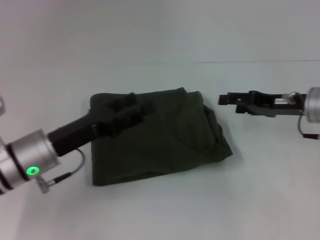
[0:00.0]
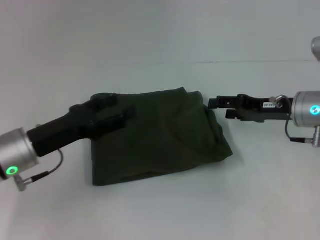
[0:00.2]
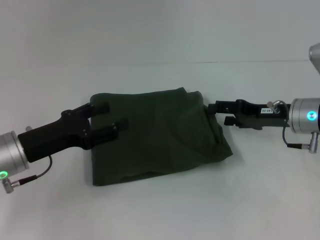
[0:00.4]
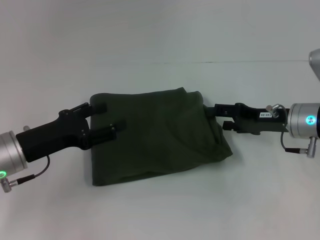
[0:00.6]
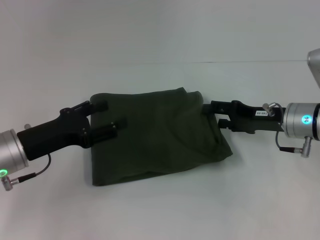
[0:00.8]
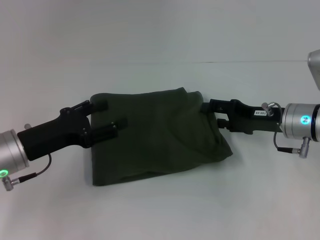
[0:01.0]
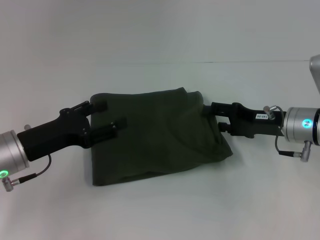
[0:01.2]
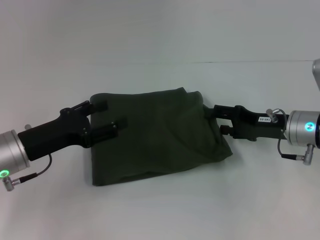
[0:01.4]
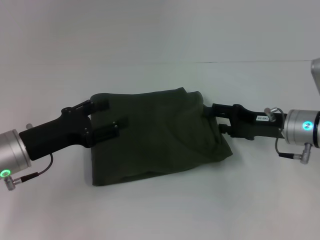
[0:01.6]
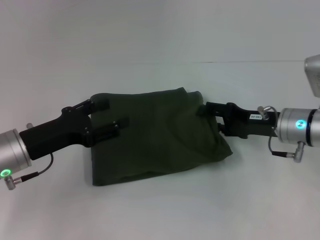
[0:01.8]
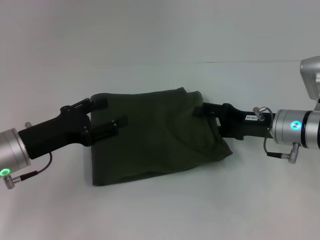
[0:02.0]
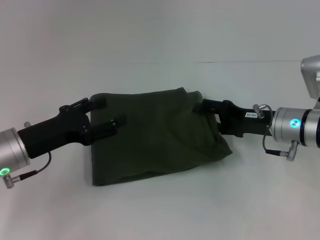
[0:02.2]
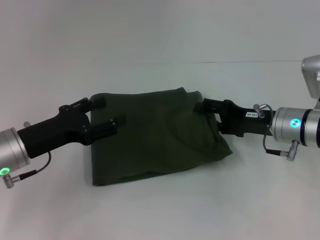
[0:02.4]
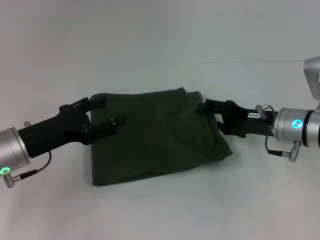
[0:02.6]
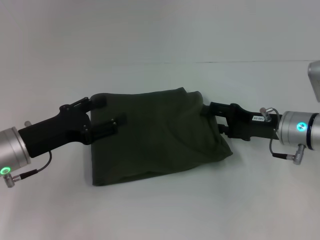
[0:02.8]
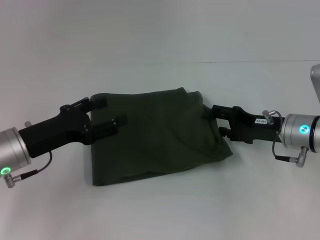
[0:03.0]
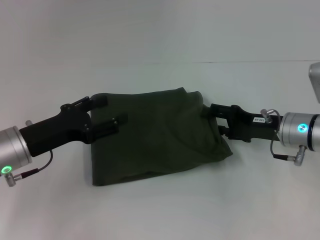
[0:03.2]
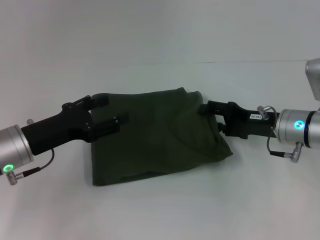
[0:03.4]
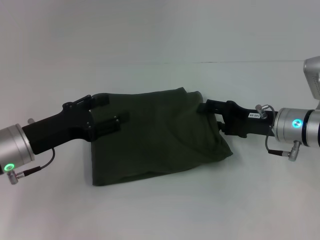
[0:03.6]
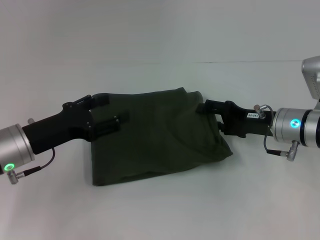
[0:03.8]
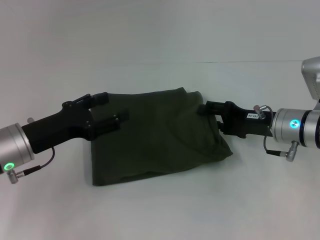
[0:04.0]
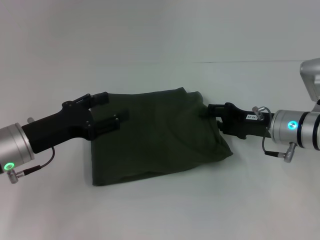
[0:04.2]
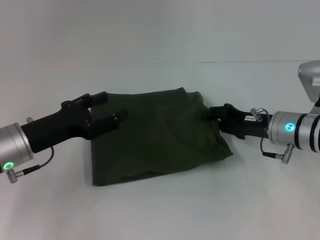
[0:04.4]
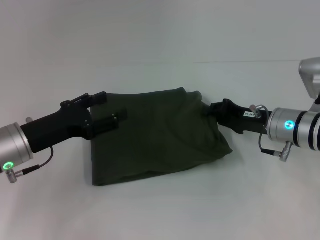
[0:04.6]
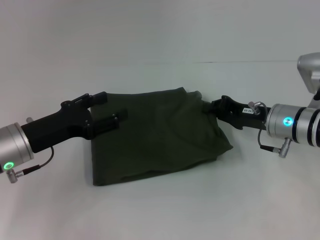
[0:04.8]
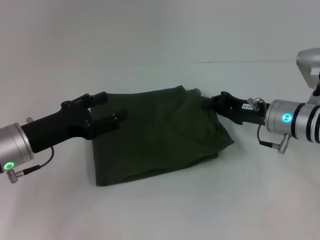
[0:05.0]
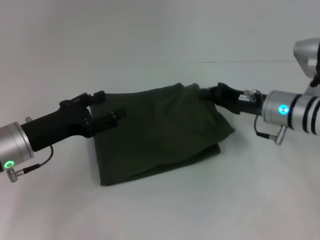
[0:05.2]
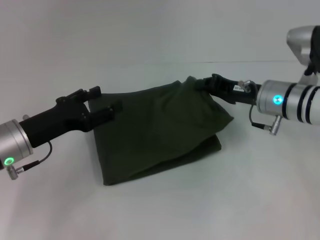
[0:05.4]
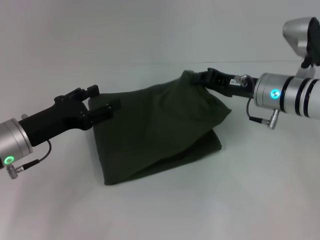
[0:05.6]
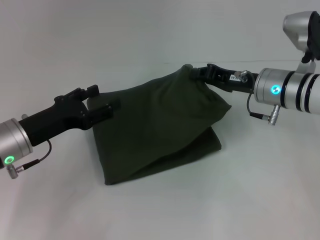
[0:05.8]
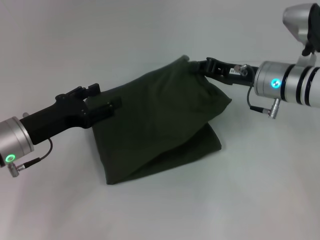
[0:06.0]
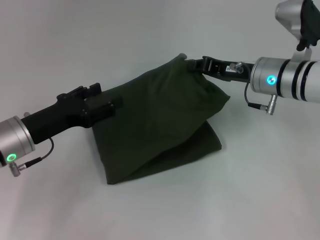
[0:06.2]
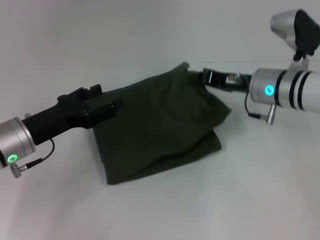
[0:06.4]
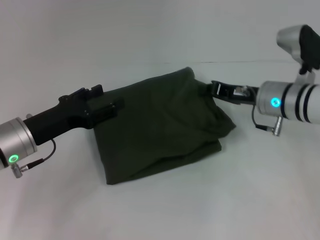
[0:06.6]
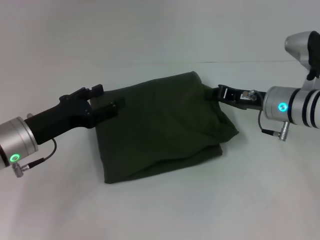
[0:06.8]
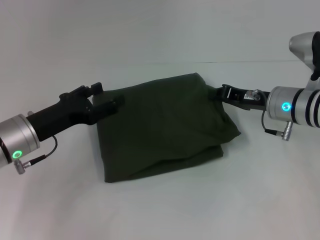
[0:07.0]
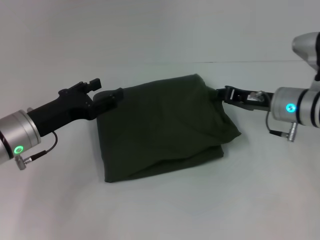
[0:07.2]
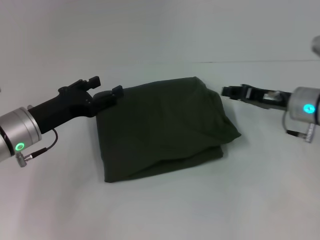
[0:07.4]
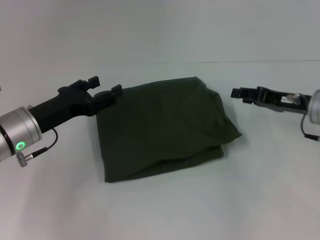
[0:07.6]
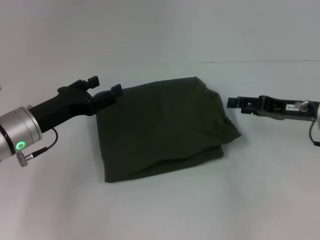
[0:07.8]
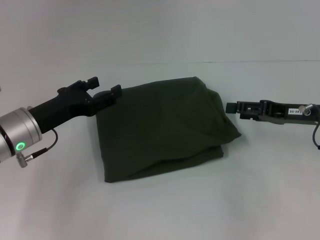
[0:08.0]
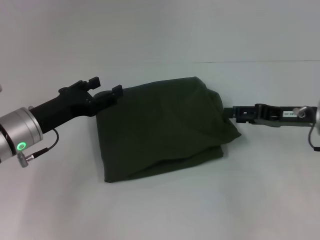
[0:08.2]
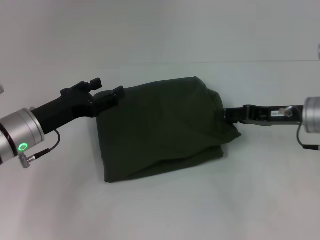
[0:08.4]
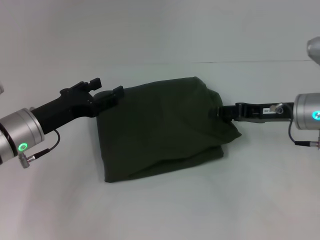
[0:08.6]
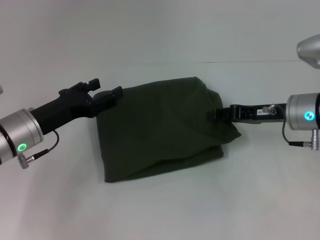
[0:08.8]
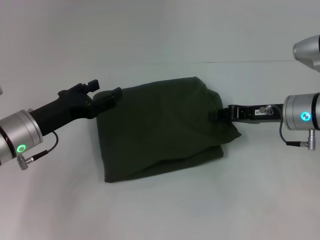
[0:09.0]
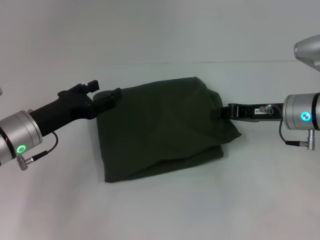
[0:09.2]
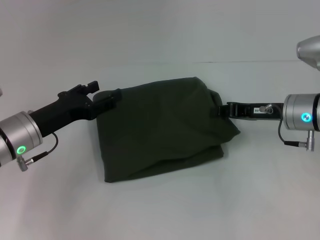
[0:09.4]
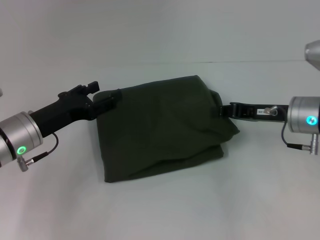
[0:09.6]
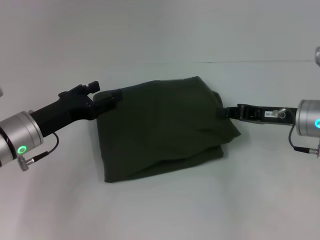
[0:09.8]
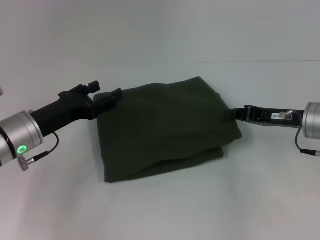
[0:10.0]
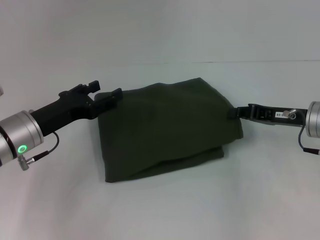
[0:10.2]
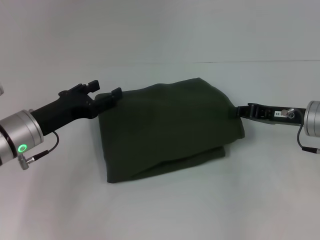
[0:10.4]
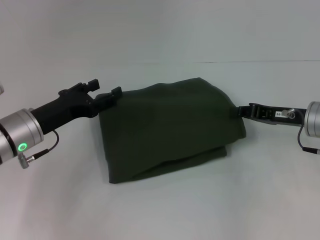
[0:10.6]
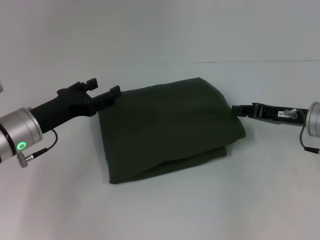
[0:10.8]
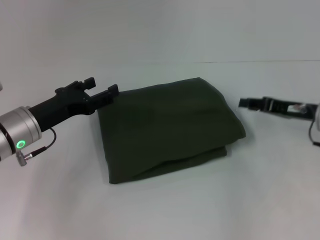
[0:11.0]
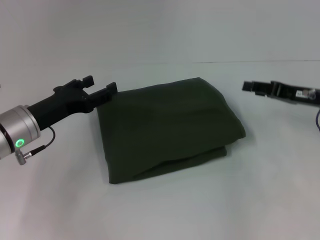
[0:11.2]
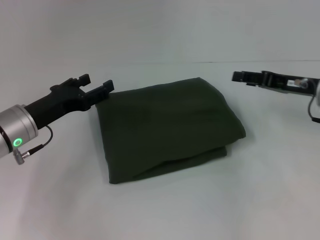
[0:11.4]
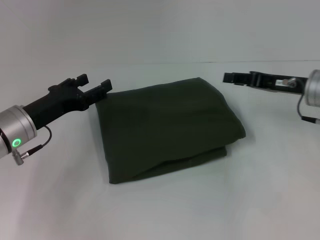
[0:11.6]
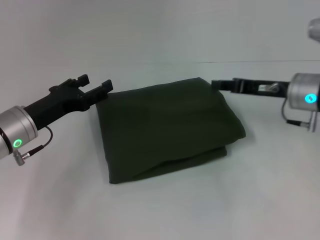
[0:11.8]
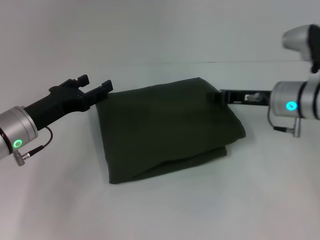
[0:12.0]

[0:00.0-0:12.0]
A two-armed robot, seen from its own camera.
0:00.0 to 0:01.6: The grippers make only small movements.
0:01.6 to 0:04.4: The grippers move only a little.
0:04.4 to 0:06.0: The right gripper goes some 5 cm upward, and closes up.
0:06.0 to 0:07.6: The right gripper travels to the right by about 10 cm.
0:07.6 to 0:09.0: The grippers stay close to where they were, moving slightly.
0:09.0 to 0:10.4: The right gripper closes up.
0:10.4 to 0:12.0: The right gripper shifts by roughly 5 cm.

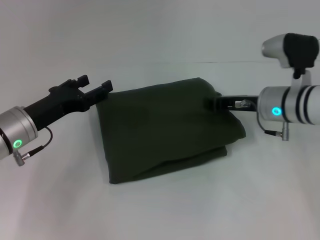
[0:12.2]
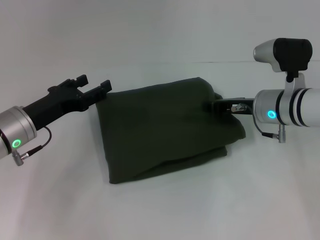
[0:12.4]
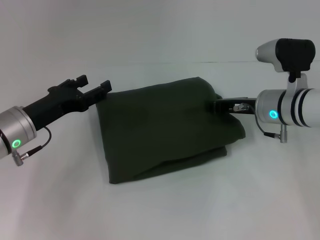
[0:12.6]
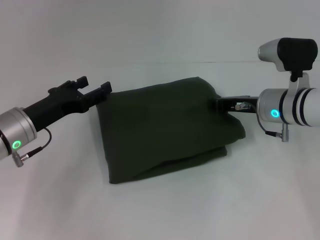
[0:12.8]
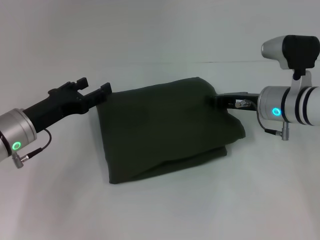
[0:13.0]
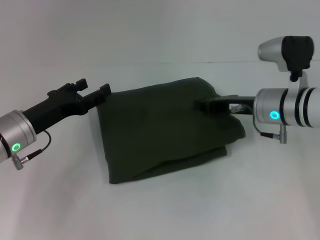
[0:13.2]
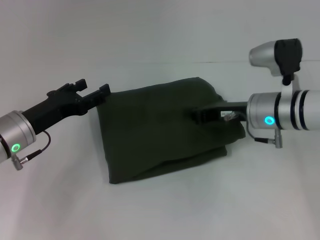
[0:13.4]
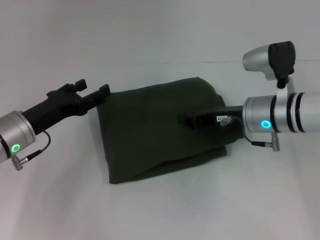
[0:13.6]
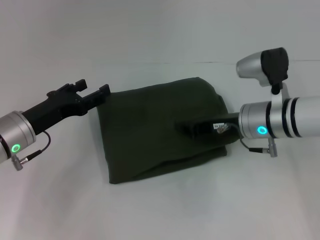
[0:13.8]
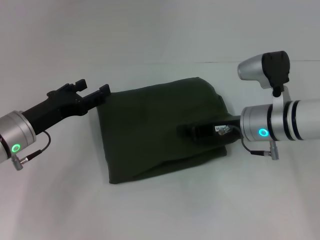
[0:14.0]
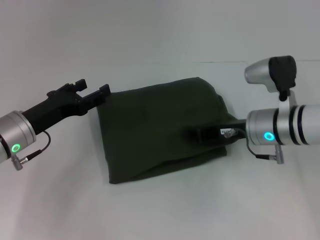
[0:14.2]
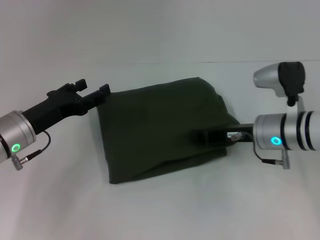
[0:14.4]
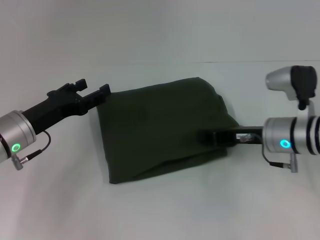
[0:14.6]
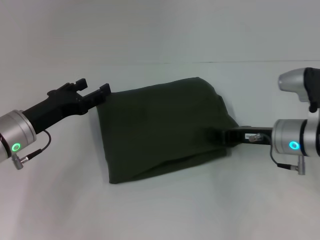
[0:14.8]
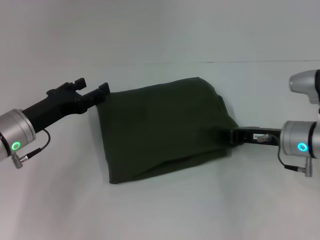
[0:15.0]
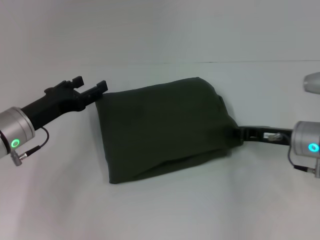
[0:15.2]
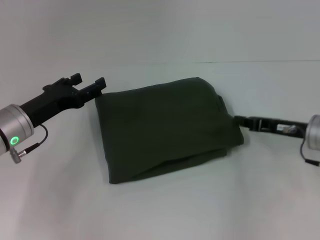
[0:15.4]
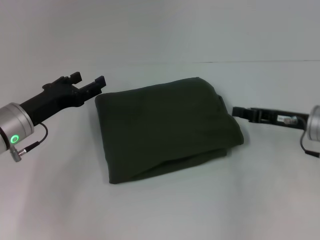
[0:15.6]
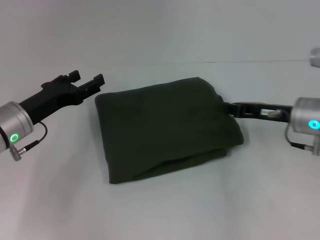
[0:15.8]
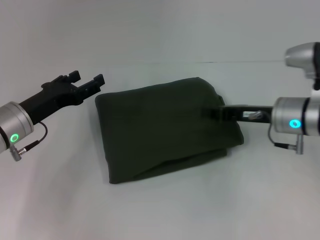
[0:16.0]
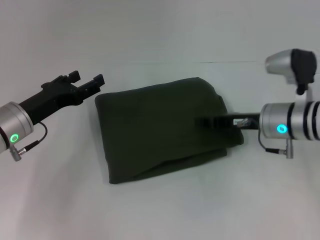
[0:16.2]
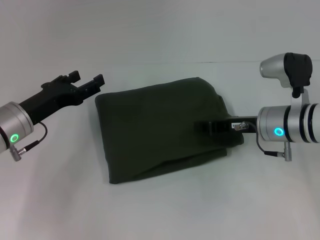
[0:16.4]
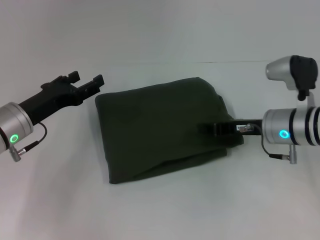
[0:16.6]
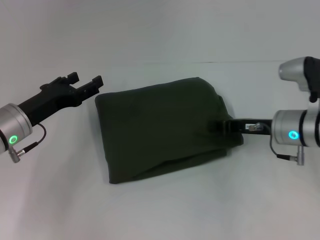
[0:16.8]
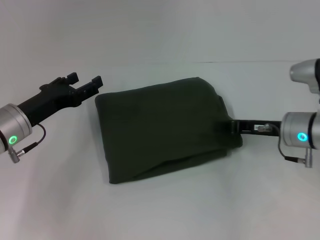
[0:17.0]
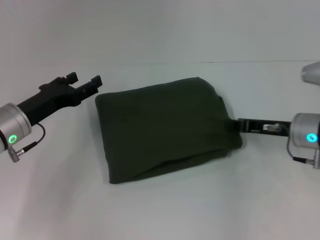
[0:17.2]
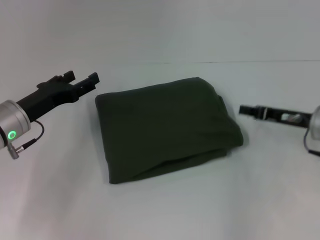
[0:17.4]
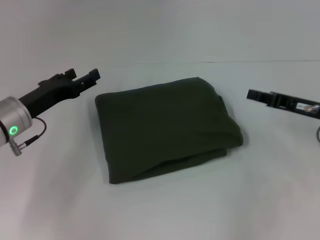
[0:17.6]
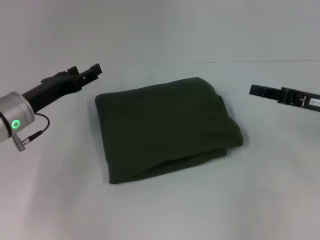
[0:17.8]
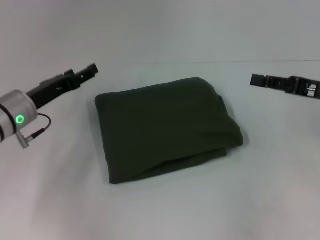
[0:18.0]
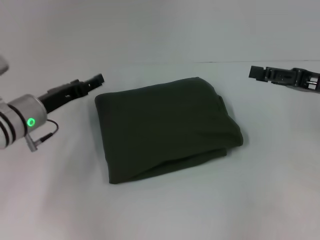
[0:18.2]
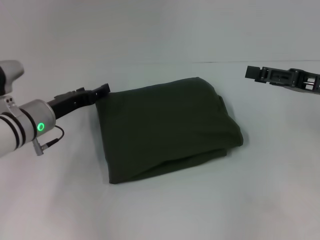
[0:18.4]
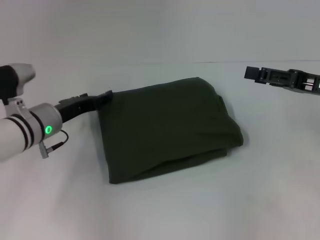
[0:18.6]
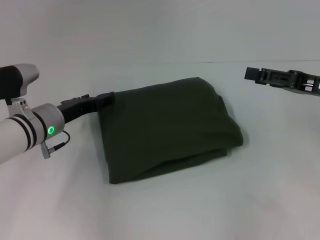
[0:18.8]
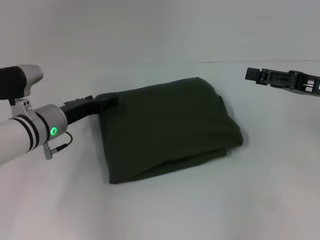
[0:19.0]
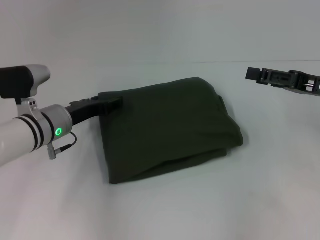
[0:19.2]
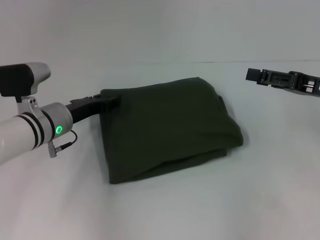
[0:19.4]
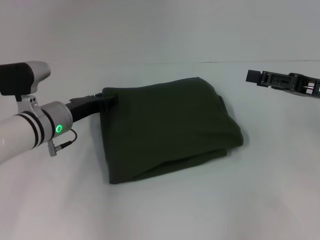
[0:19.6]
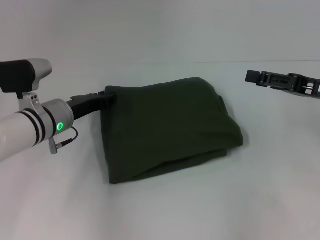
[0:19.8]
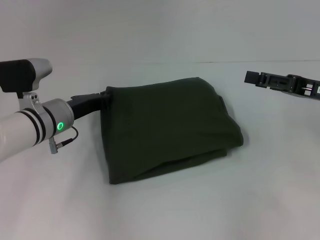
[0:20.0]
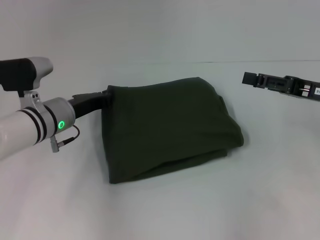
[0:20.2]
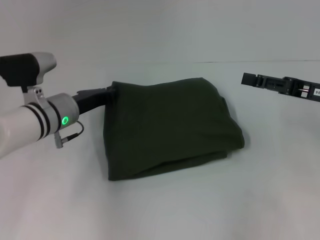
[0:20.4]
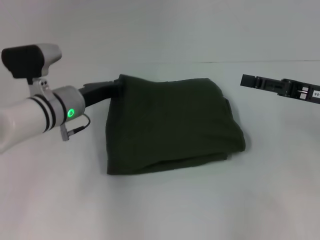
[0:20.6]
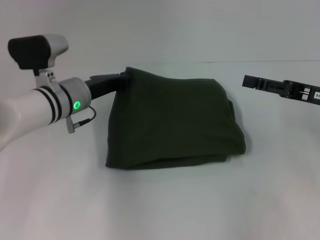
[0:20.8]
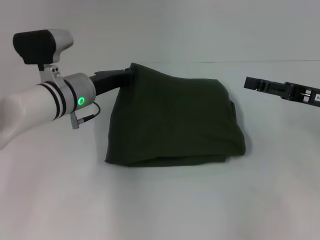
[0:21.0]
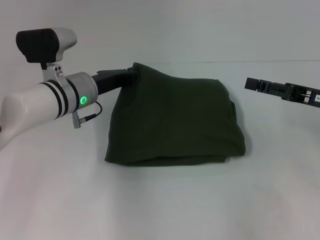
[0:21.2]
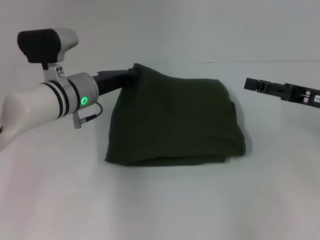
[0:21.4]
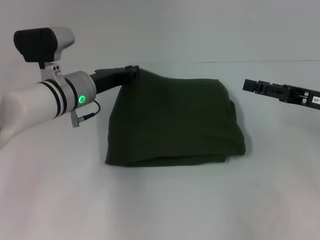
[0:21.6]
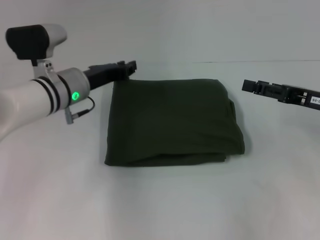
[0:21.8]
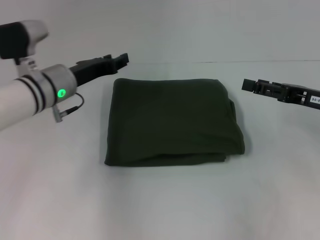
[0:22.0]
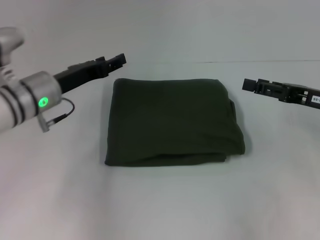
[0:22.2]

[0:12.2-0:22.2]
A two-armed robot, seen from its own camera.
0:12.2 to 0:13.6: There are only small adjustments of the grippers.
0:13.6 to 0:15.0: The right gripper moves to the right, some 5 cm.
0:15.0 to 0:16.4: The grippers make only small movements.
0:16.4 to 0:18.0: The right gripper heads to the right and upward, covering about 15 cm.
0:18.0 to 0:19.4: The right gripper opens its fingers. The left gripper ends up approximately 5 cm from where it was.
0:19.4 to 0:20.8: The left gripper closes up.
0:20.8 to 0:22.2: The left gripper opens up.
